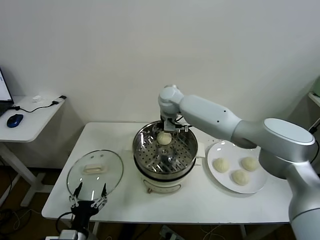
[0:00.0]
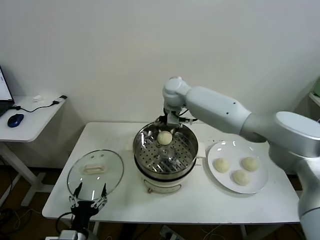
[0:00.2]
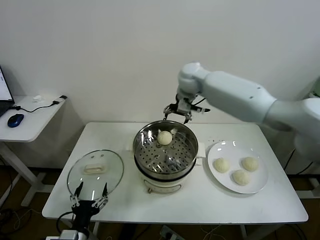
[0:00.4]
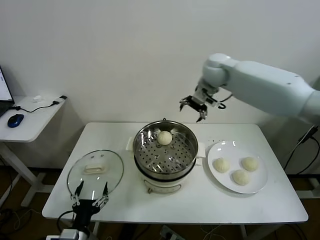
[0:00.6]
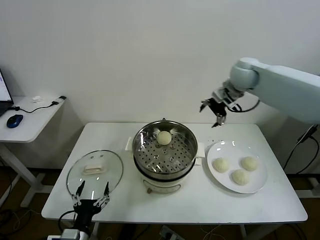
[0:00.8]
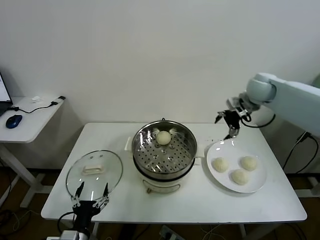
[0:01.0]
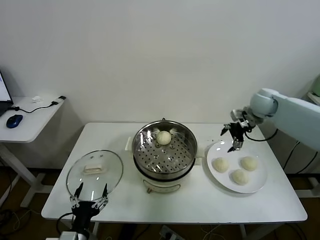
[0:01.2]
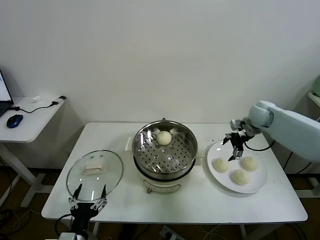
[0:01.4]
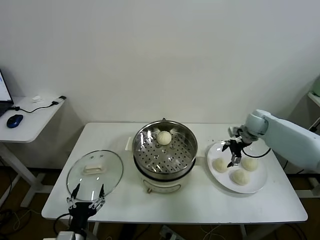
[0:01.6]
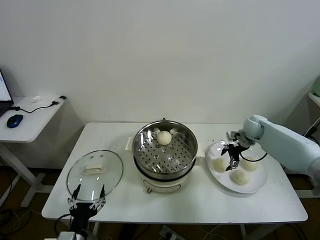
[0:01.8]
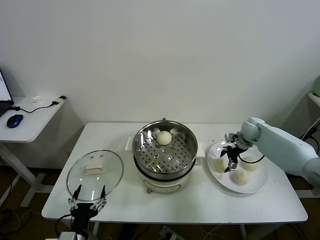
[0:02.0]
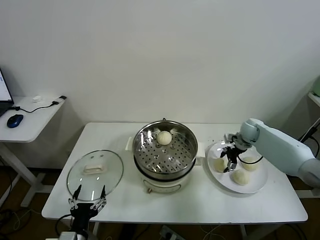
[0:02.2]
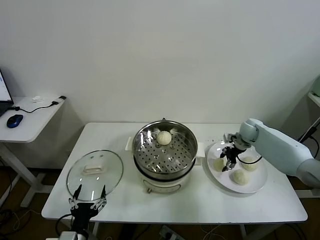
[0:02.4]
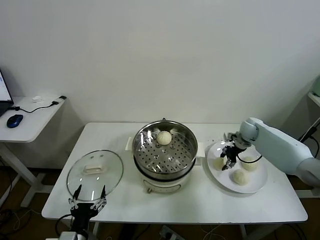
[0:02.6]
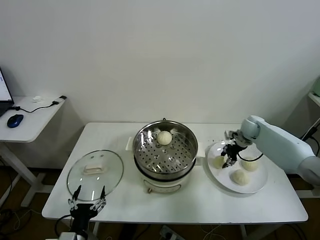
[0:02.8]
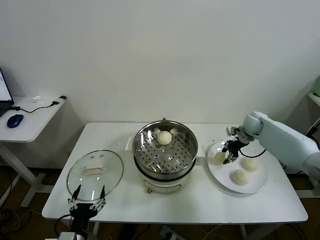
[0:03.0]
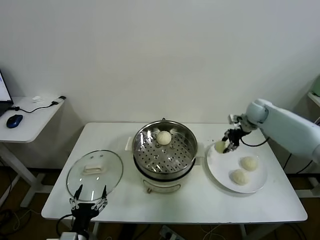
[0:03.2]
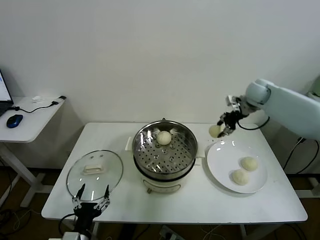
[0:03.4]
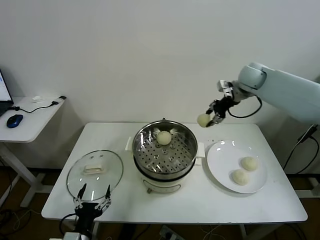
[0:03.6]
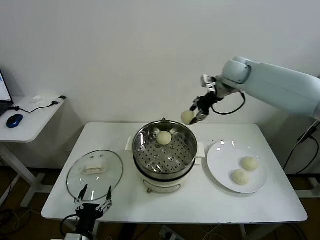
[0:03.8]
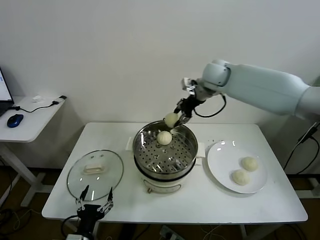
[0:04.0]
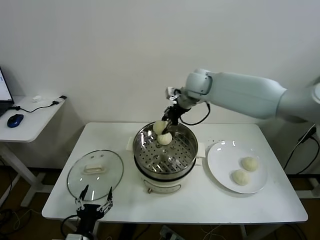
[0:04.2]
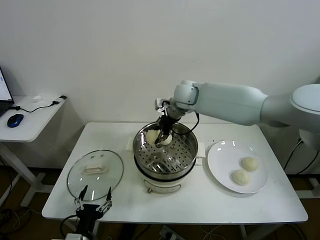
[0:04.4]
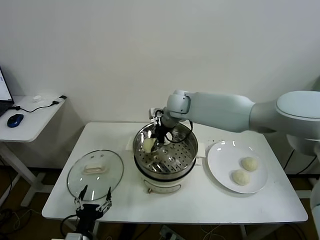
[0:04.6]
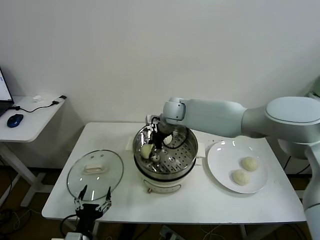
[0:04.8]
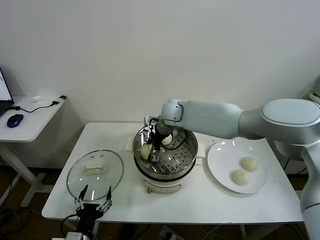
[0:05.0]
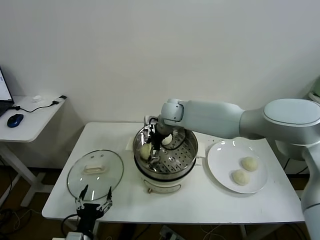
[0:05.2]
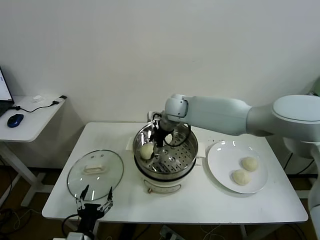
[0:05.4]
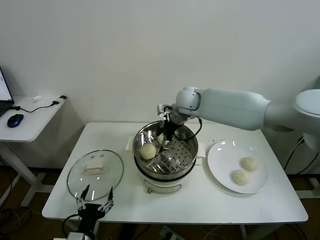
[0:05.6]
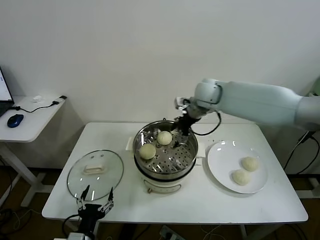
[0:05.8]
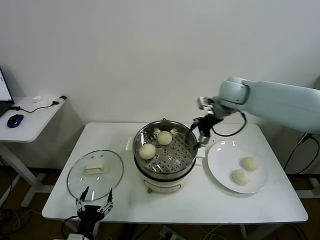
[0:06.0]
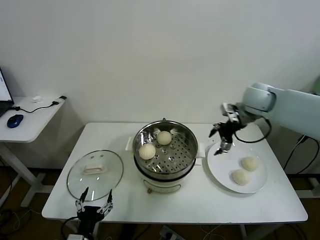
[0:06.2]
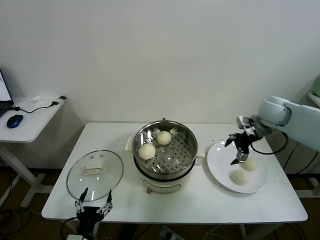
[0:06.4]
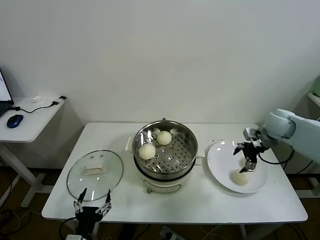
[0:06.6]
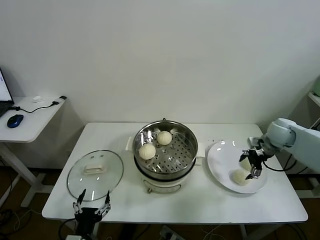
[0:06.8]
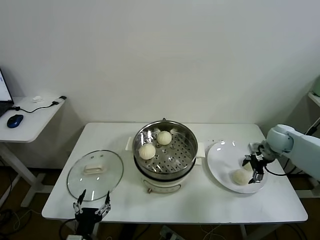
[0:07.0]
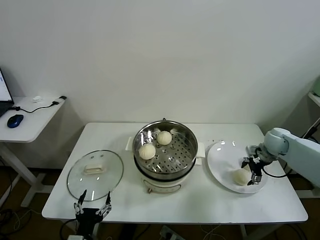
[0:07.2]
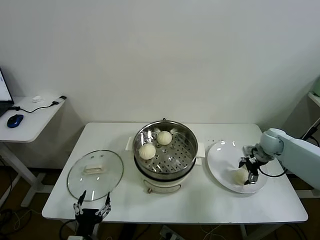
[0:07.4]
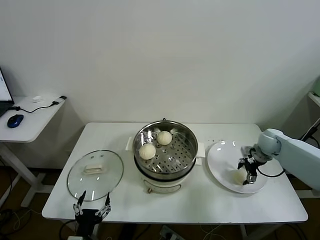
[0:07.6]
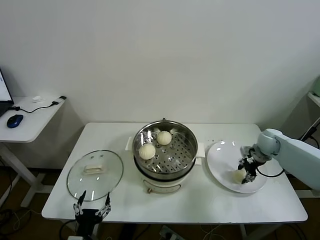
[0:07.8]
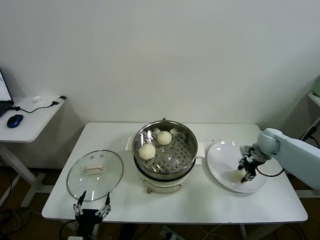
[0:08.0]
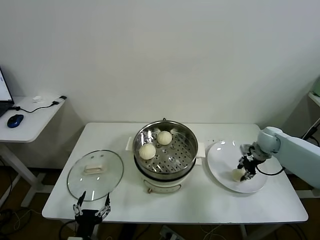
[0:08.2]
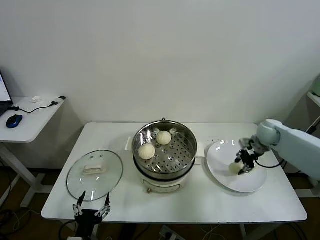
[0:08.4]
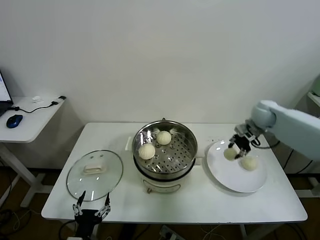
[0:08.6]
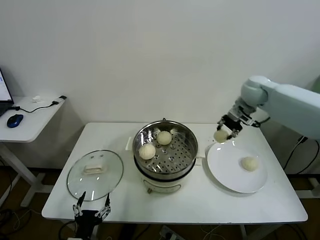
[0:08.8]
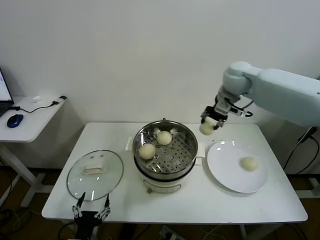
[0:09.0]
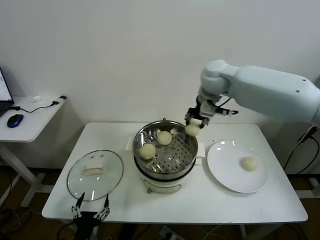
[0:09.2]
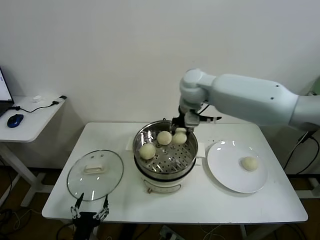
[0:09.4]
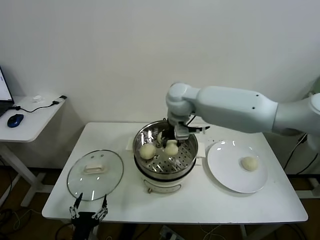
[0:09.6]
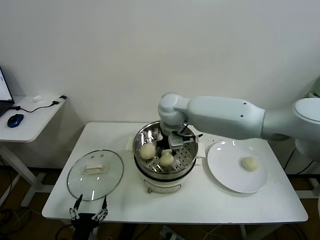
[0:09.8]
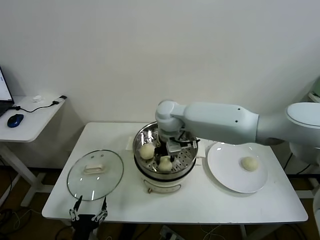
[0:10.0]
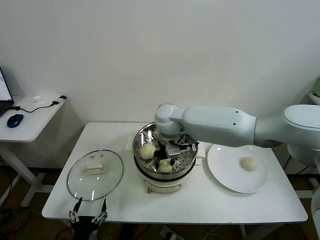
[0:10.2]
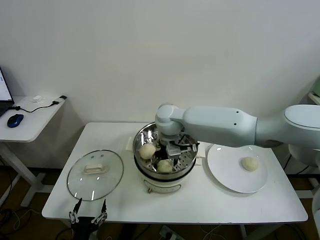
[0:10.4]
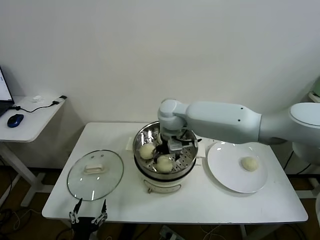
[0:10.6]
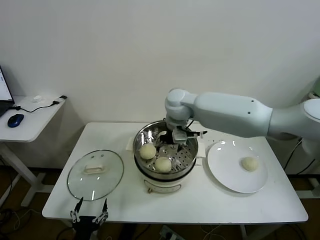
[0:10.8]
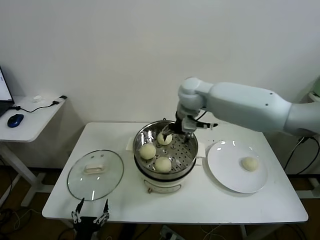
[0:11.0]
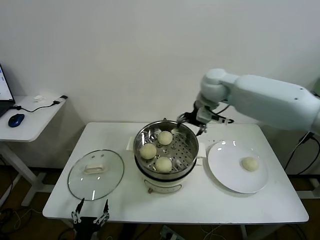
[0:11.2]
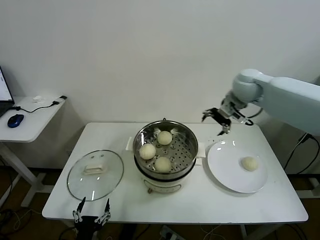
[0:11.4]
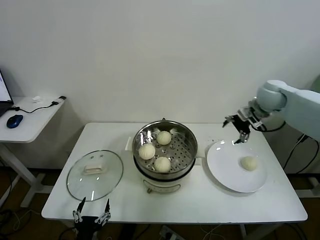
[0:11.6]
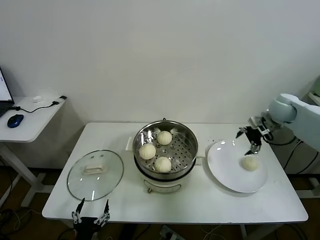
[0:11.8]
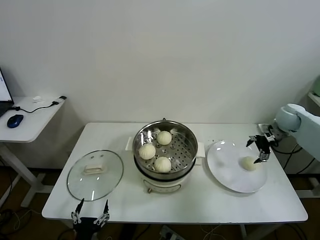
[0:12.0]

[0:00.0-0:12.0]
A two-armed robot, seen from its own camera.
Task of the whole recording: take steamed baozi put them in steamer.
Step, 0.2 to 2.4 s: Grasp the baozi in the plate with right gripper.
Step, 2.6 to 5.2 s: Place the baozi on the steamer with right gripper.
Step, 5.6 to 7.8 s: Grasp the baozi in the plate with right gripper.
Step, 8.0 to 10.6 s: Place the baozi on the steamer with right gripper.
0.0 to 1.6 s: The right gripper moves to the right and downward, about 35 cm.
1.6 to 3.0 s: The right gripper changes place by approximately 5 cm, and closes up.
3.0 to 4.4 s: The right gripper shifts approximately 30 cm to the left.
4.4 to 6.0 s: The right gripper travels to the right by approximately 20 cm, and opens its fingers.
6.0 to 7.6 s: The right gripper travels downward and to the right by some 25 cm, and closes.
7.6 to 9.0 s: The right gripper moves upward and to the left, some 35 cm, and closes its fingers.
9.0 to 10.4 s: The right gripper moves to the left and downward, about 20 cm, and opens its fingers.
10.4 to 12.0 s: The right gripper is displaced to the right by about 50 cm.

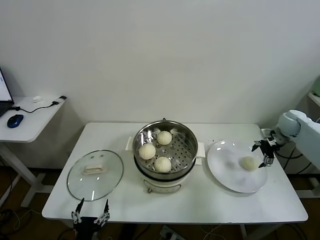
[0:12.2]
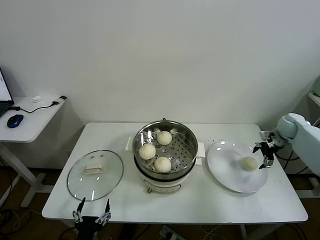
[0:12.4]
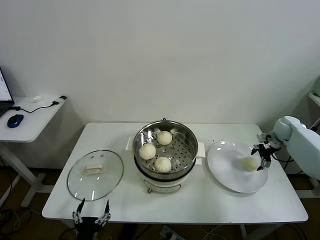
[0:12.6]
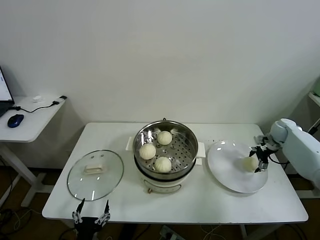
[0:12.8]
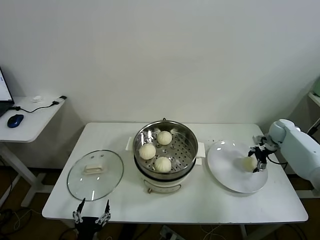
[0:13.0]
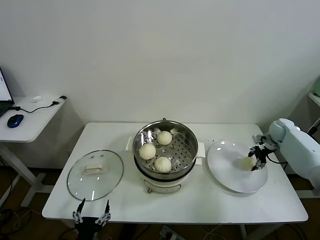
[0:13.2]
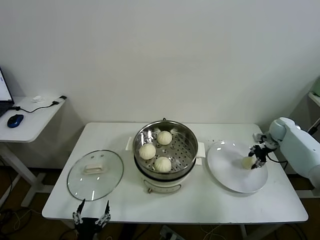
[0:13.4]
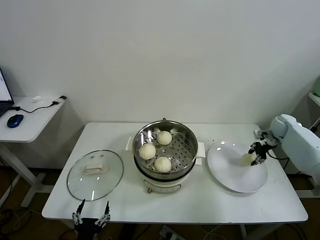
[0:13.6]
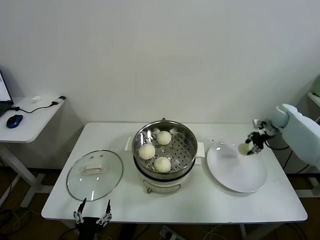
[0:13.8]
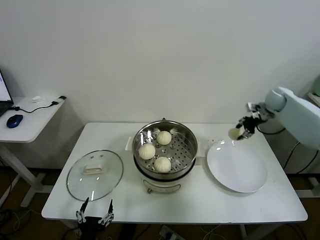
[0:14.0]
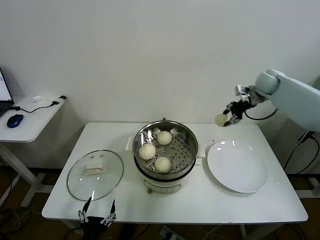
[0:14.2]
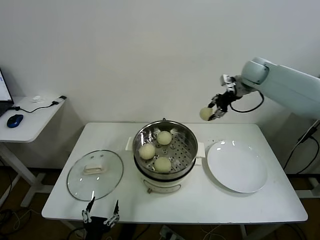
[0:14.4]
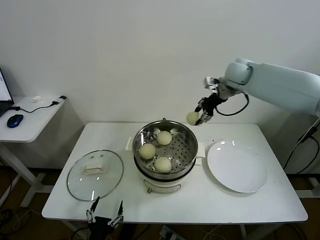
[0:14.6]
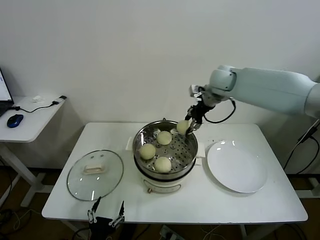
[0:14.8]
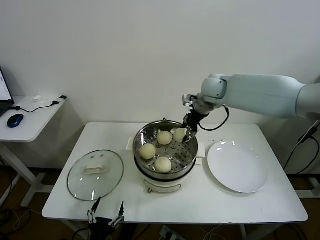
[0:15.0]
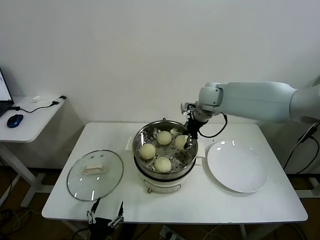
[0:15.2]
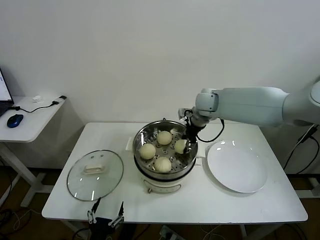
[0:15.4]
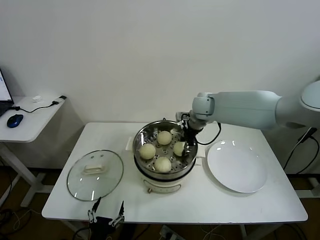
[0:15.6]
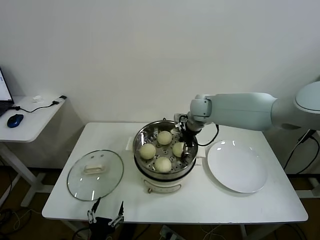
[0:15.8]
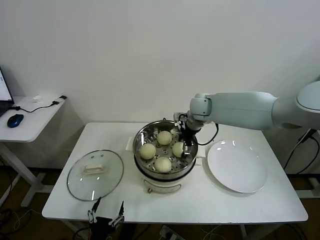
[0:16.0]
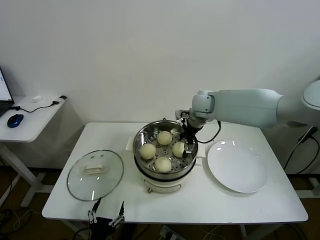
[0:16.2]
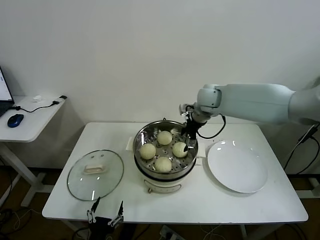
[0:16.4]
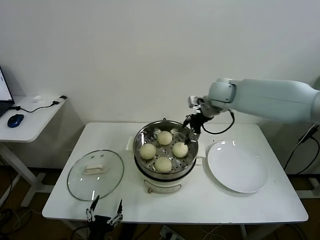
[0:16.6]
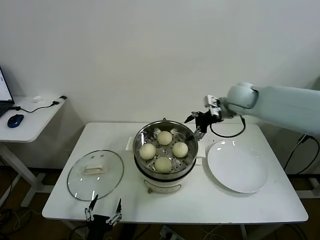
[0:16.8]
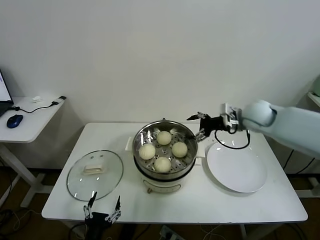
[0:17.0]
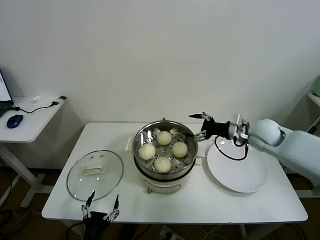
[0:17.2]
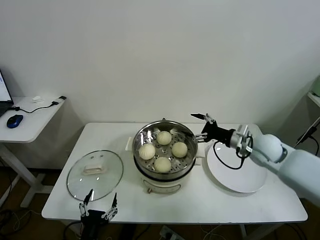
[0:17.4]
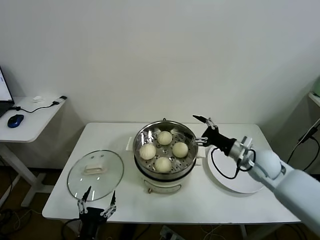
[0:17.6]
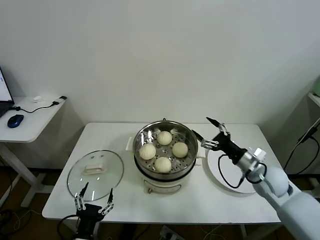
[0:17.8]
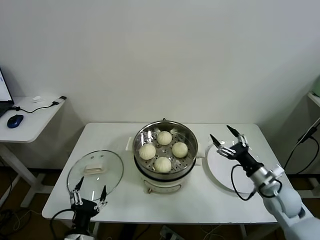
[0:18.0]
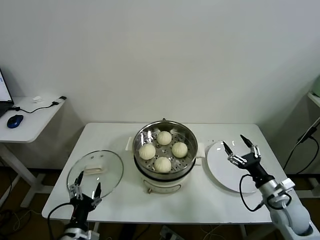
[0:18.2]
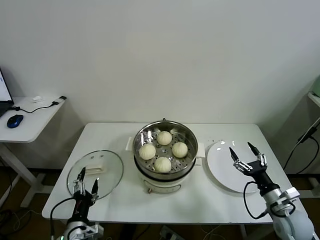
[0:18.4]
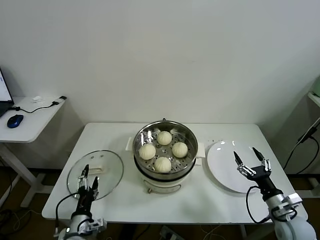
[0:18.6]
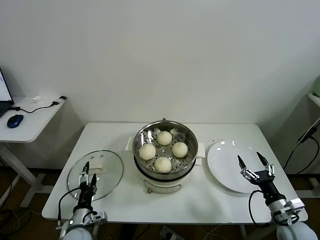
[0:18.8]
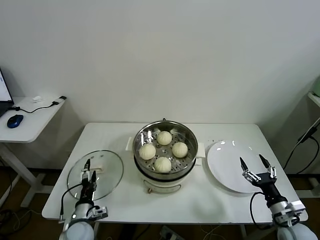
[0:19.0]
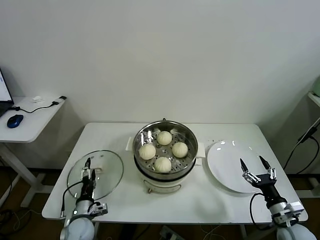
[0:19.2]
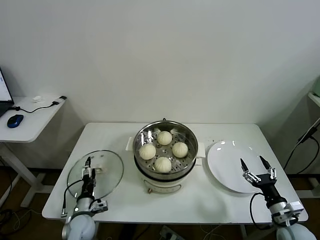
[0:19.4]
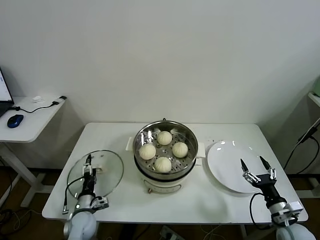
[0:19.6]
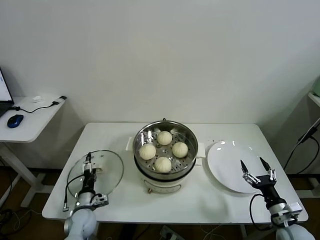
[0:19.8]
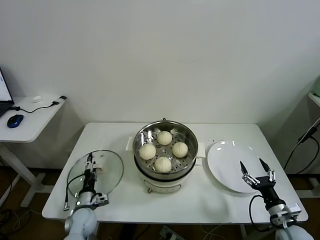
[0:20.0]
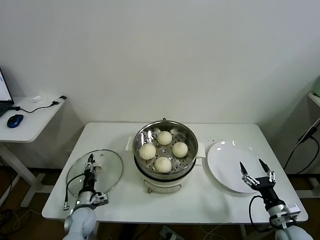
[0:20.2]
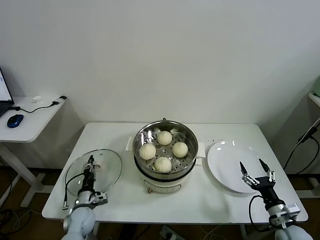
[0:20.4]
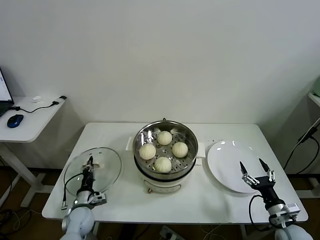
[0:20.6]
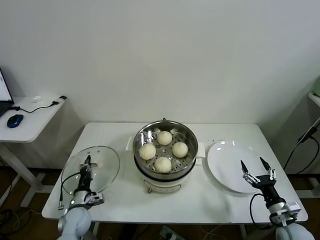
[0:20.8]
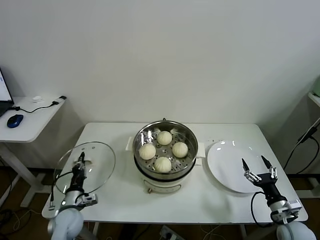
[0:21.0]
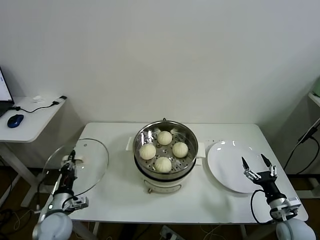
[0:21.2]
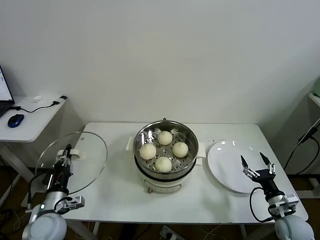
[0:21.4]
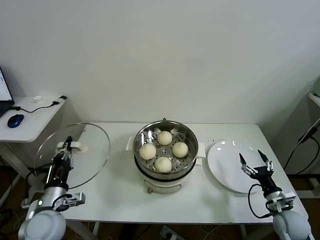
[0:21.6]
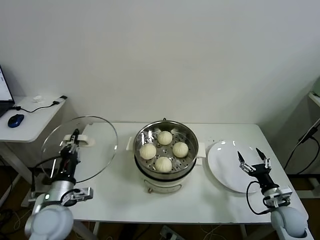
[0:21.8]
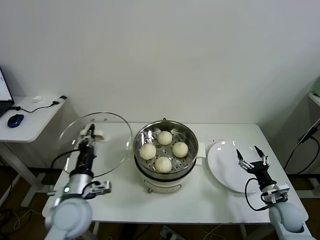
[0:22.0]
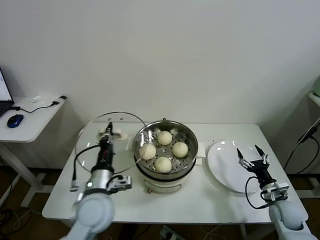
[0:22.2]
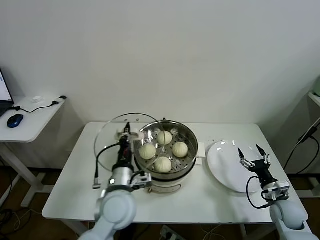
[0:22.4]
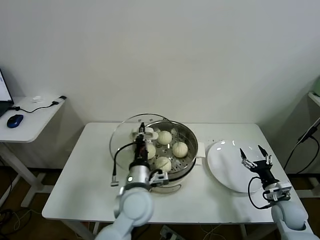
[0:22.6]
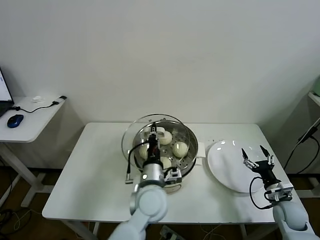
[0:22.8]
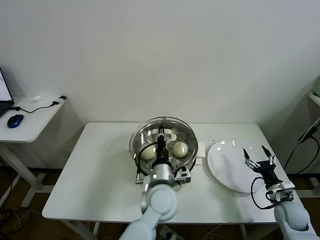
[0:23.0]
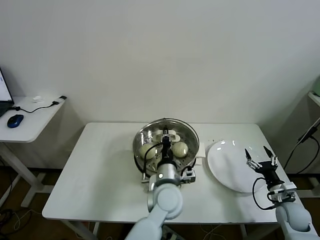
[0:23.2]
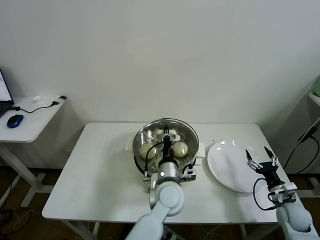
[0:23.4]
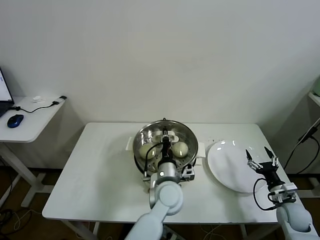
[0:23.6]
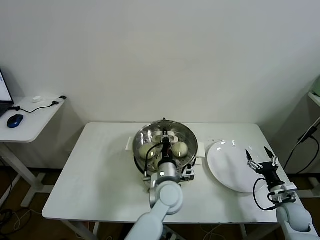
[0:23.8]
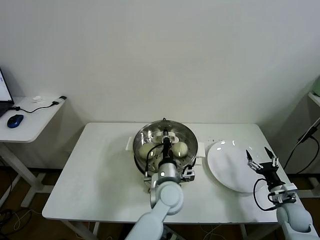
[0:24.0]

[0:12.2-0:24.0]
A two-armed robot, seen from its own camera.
Task of the whole recording: take steamed baozi put them in steamer.
Step, 13.4 to 16.0 s: Place the baozi on the steamer with right gripper.
Step, 16.2 to 20.6 s: Grasp the pot lid with left gripper.
12.2 to 13.6 s: The right gripper closes its fingers.
13.6 to 15.2 s: The right gripper shifts some 35 cm to the left and upward.
15.2 to 16.6 s: The right gripper opens its fingers.
16.6 to 18.2 s: The left gripper shifts by about 5 cm. The right gripper heads backward, downward and to the right, covering roughly 40 cm.
18.2 to 19.6 s: The left gripper shifts roughly 20 cm forward and downward. The right gripper moves downward and backward, roughly 10 cm.
19.6 to 21.0 s: The left gripper closes up.
21.0 to 22.6 s: The left gripper goes about 30 cm to the right and upward. Meanwhile the right gripper is displaced forward by about 5 cm.
22.6 to 24.0 s: The left gripper heads to the right and downward, covering some 10 cm.
